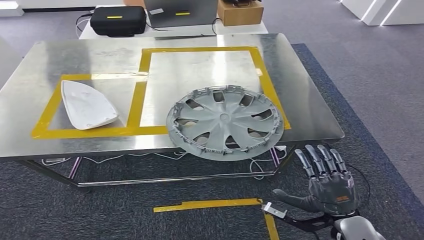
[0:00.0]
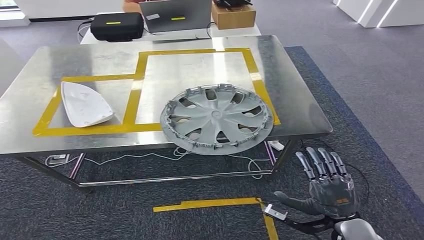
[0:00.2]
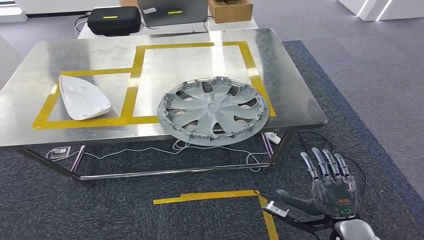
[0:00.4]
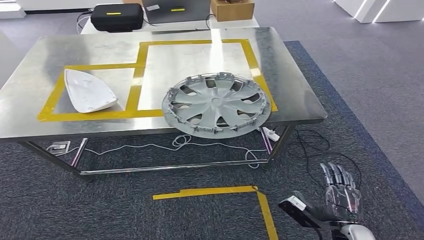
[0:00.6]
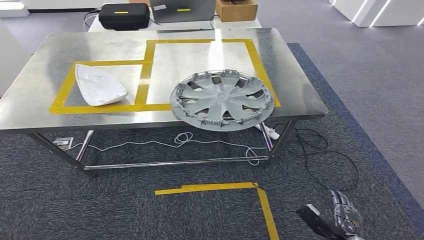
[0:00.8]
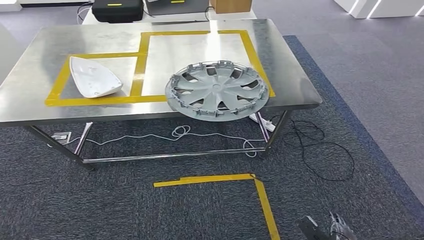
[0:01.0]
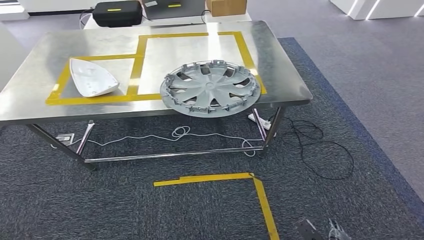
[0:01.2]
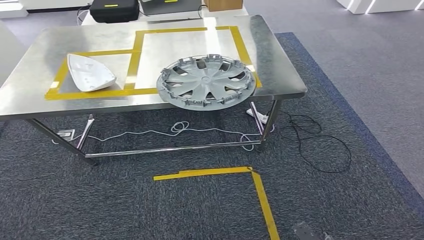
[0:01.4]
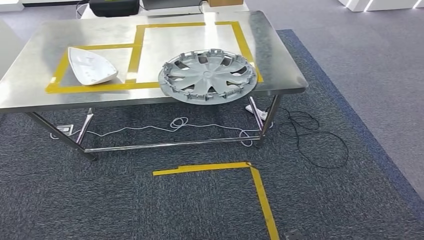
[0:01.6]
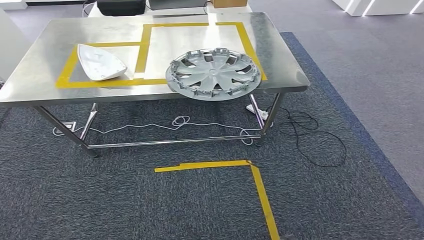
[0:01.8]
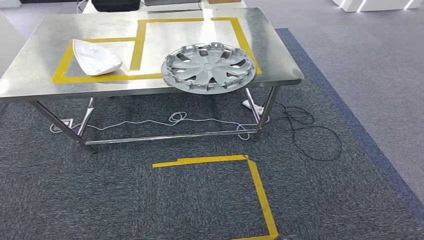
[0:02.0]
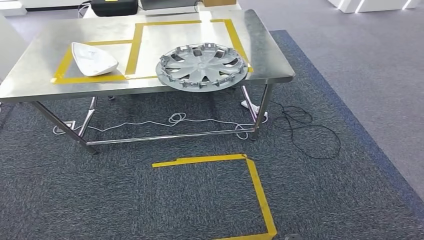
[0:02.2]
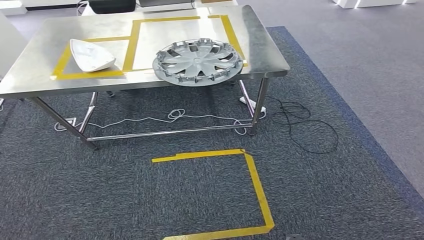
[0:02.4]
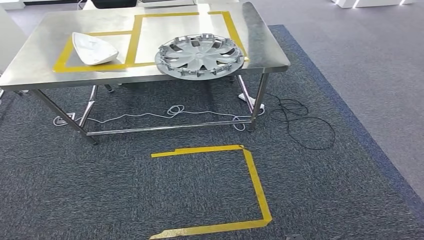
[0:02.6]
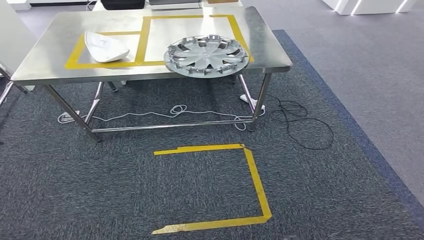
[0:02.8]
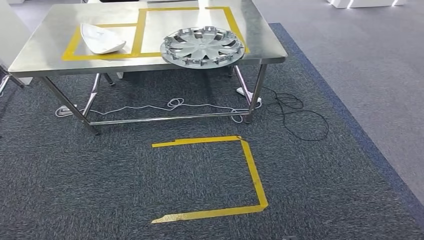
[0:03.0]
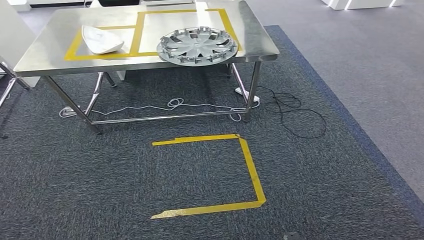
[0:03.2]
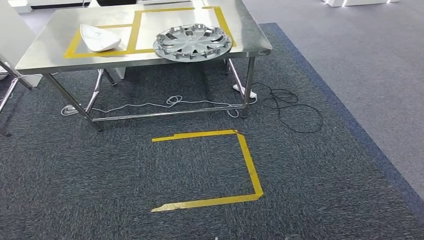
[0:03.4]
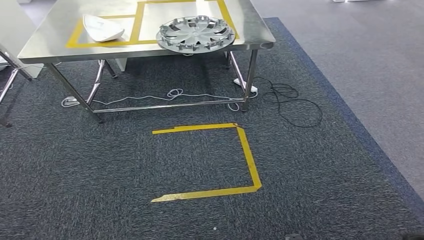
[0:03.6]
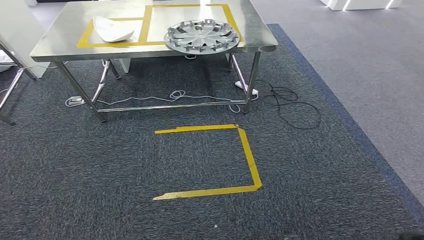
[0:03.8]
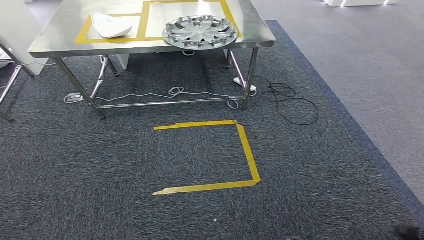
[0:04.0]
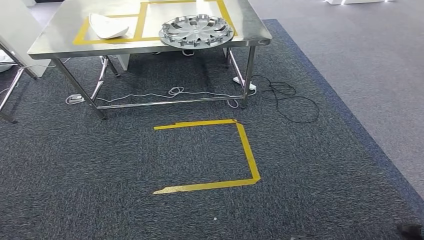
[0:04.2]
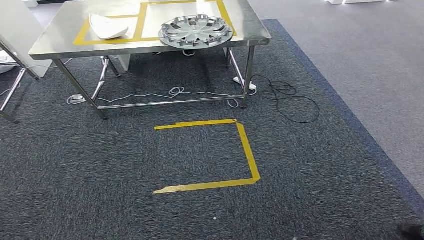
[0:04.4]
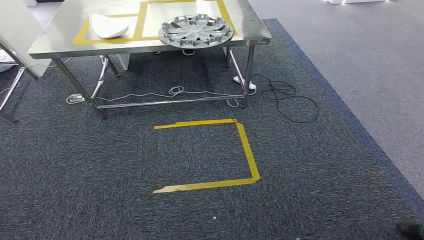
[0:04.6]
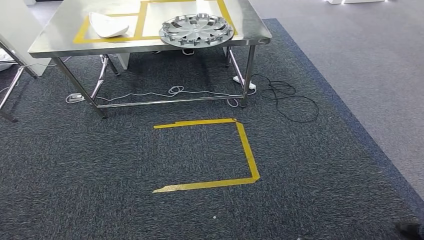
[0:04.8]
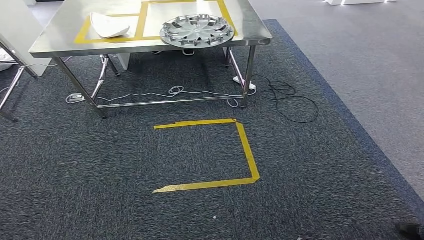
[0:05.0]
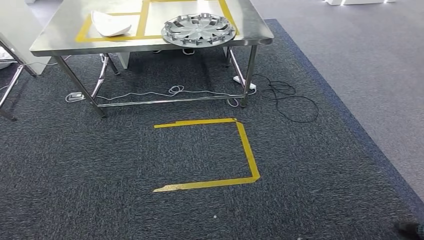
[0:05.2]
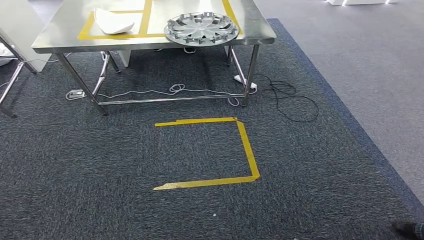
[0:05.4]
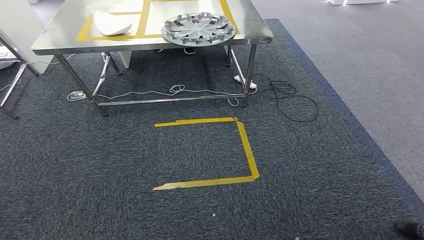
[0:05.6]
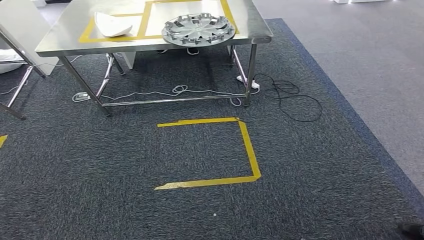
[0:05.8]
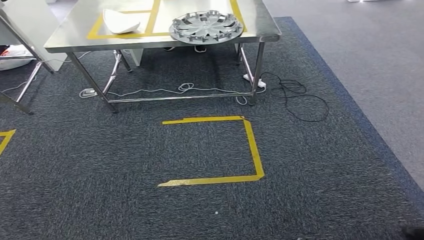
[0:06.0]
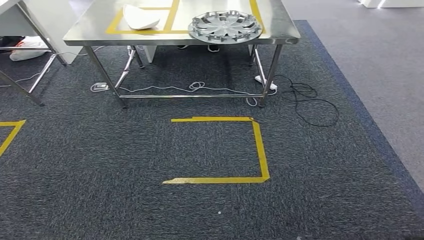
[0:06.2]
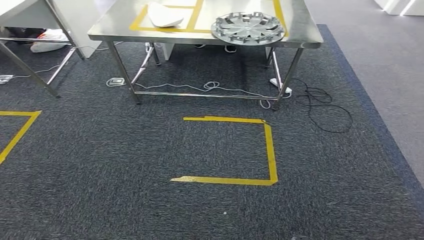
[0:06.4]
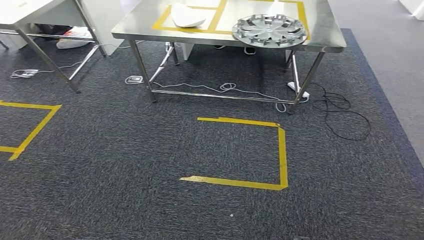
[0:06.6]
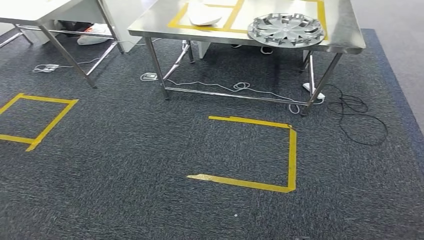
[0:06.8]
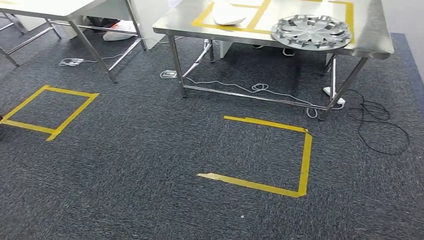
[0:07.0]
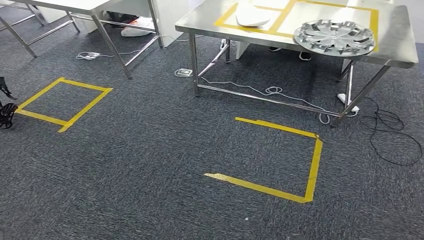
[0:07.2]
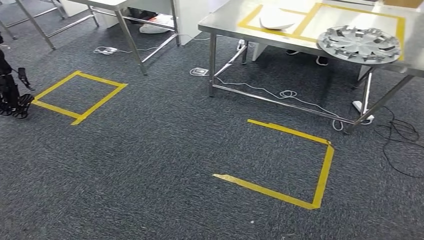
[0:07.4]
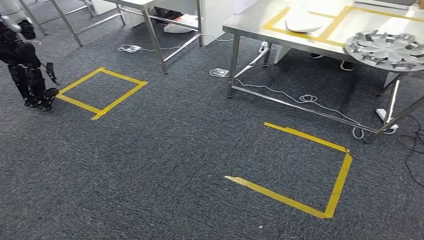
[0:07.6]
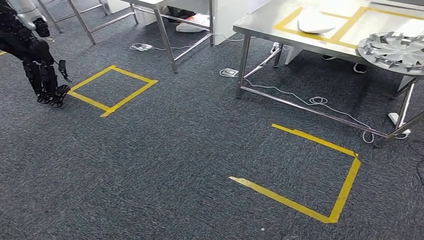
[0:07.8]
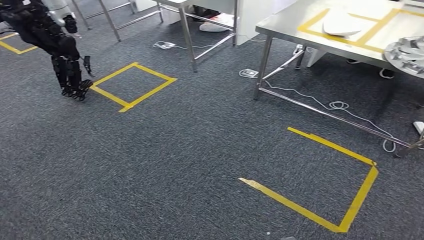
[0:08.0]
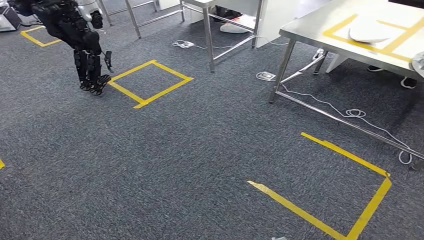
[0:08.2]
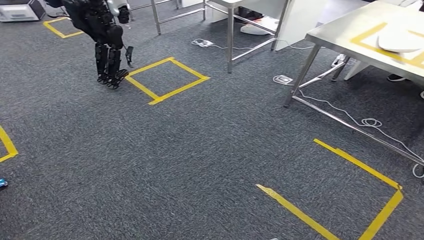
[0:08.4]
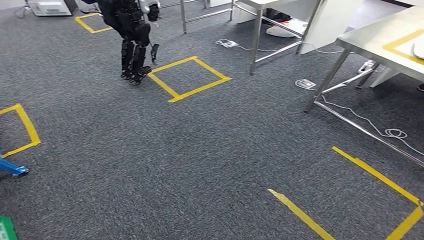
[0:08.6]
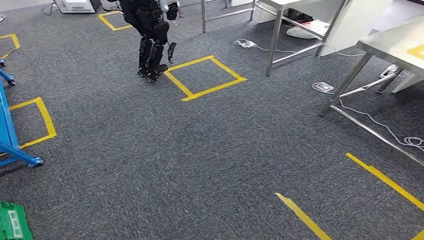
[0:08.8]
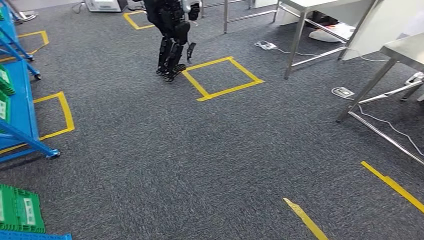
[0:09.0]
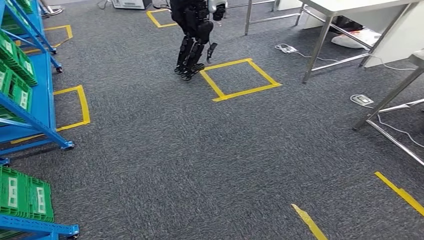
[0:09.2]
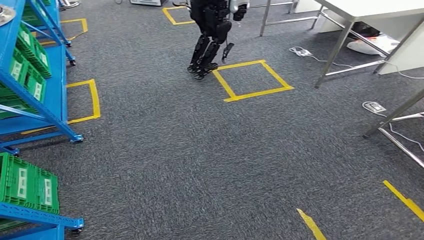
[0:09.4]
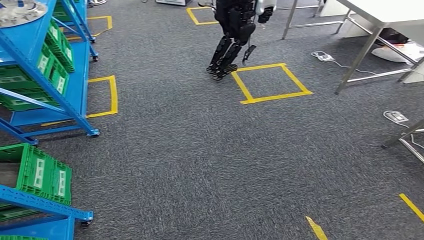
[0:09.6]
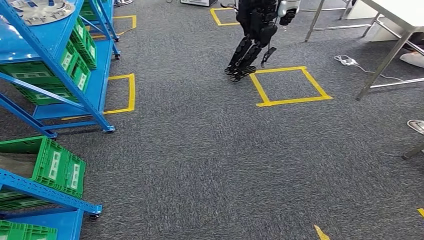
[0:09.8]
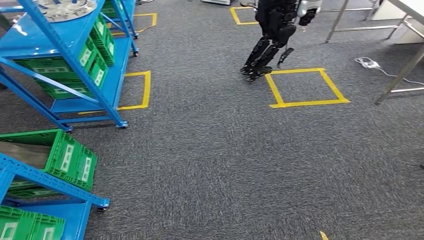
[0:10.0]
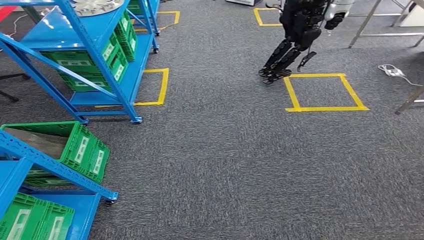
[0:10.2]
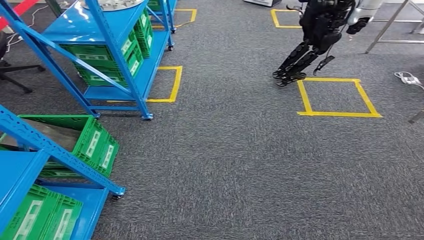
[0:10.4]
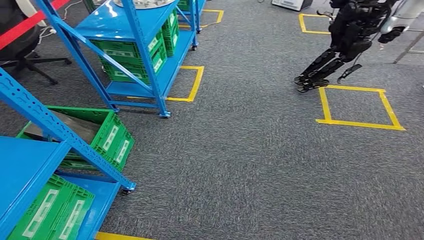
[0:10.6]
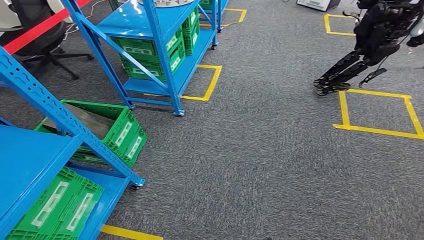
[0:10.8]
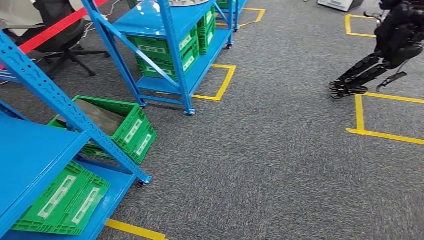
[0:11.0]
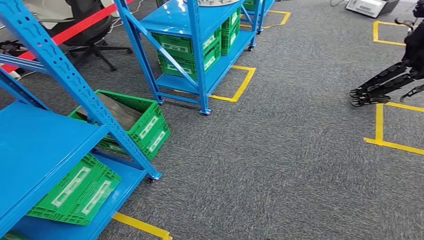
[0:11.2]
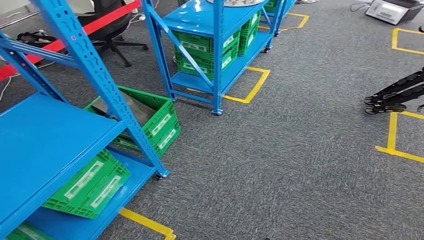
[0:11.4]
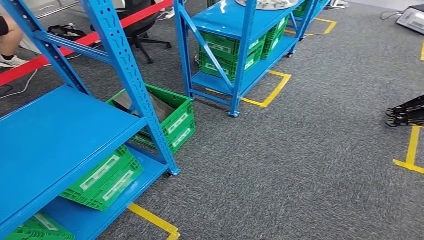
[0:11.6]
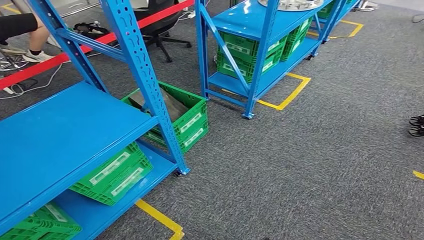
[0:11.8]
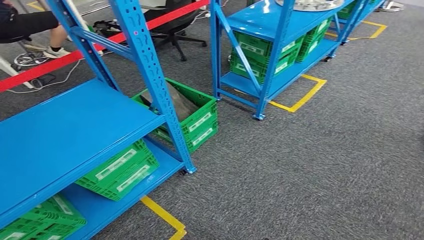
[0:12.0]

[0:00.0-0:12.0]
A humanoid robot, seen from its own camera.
0:04.4 to 0:06.0: The hands move only a little.

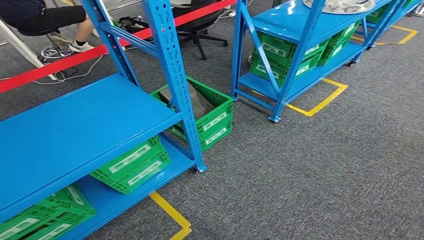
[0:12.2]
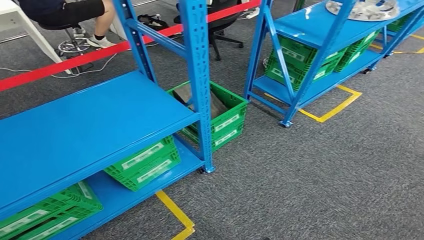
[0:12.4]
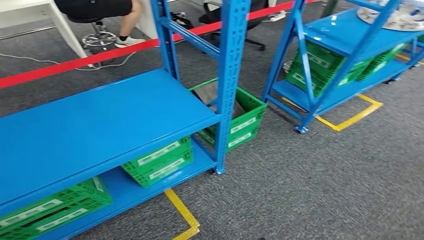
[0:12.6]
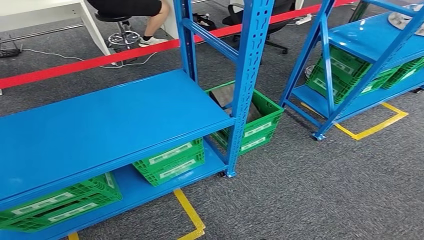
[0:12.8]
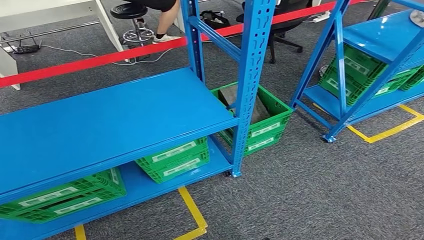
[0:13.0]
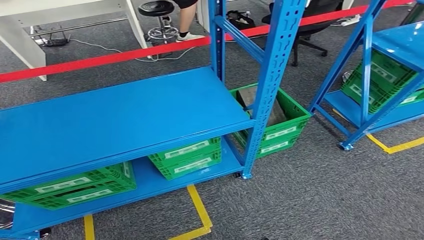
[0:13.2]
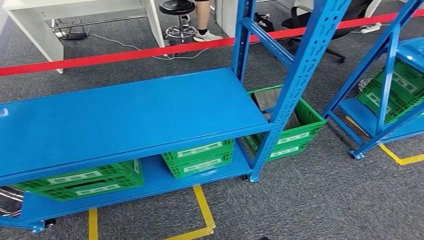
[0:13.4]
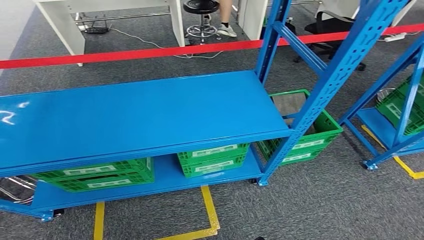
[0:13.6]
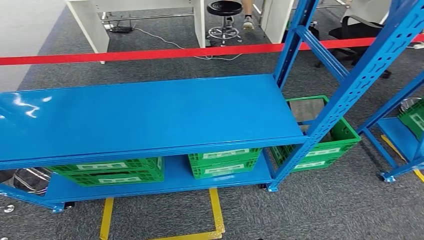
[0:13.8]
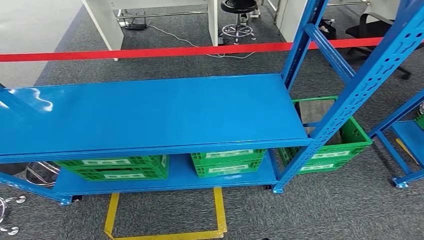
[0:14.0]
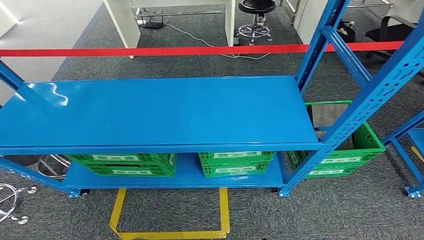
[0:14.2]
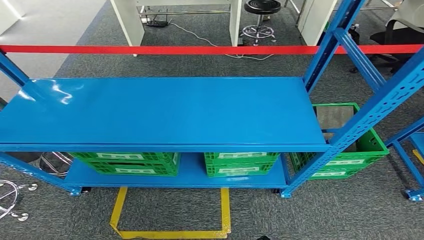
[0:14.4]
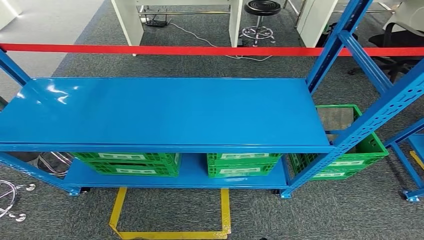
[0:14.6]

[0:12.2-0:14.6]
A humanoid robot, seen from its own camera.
Step, 0:12.2 to 0:14.6: Return to the initial position at the workbench.

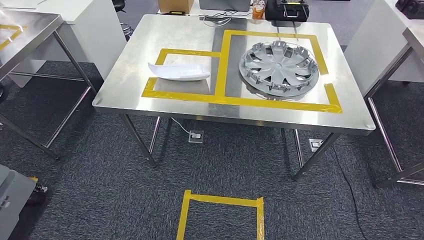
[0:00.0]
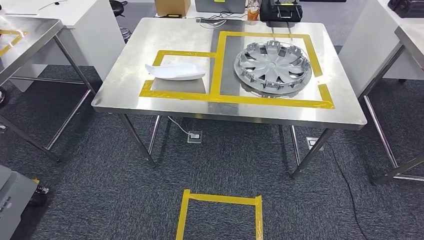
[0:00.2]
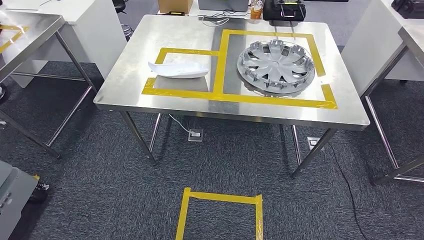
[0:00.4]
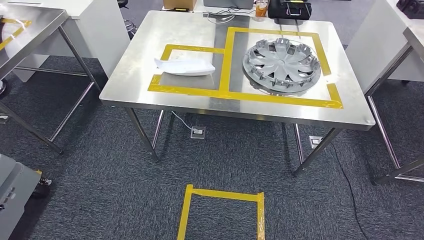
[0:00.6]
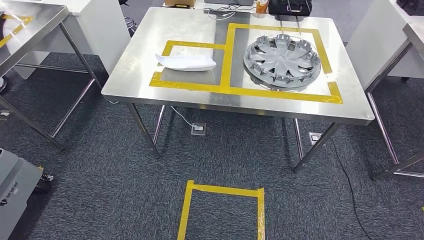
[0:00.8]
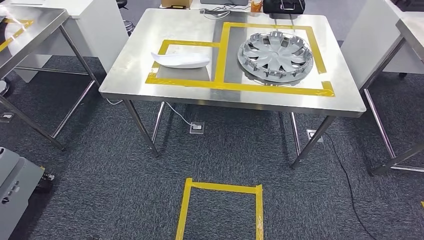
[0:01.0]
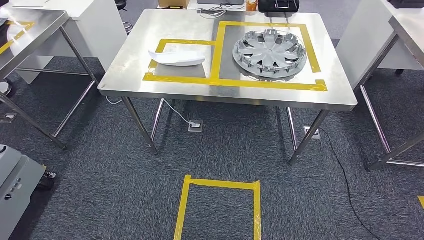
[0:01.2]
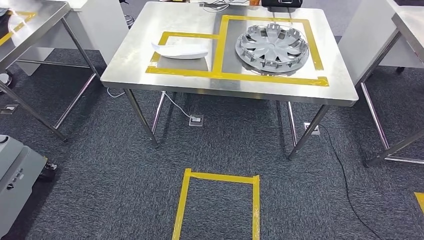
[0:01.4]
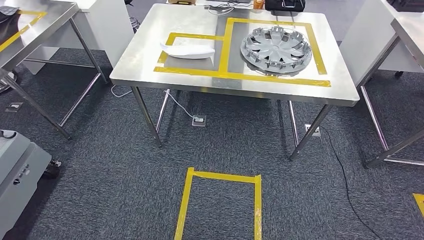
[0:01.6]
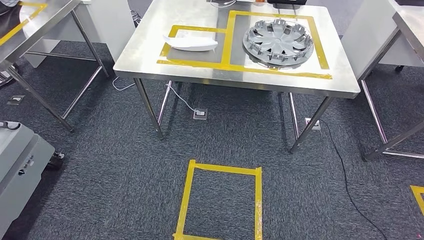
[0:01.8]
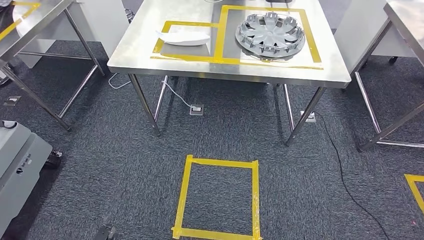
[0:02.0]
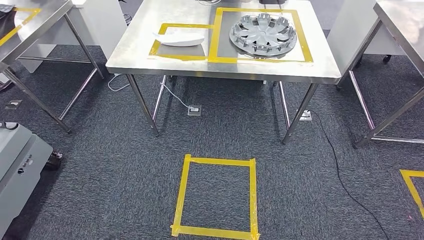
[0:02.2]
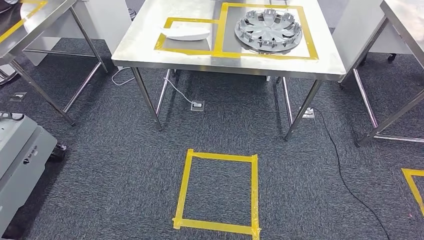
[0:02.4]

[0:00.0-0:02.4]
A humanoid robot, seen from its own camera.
Step, 0:00.0 to 0:02.4: Return to the initial position at the workbench.
